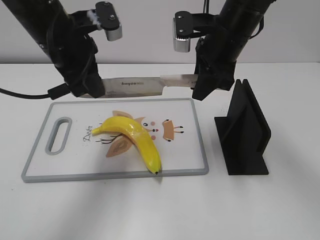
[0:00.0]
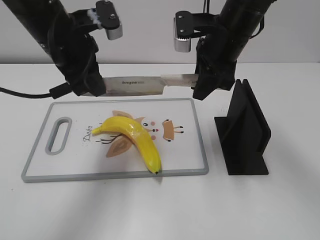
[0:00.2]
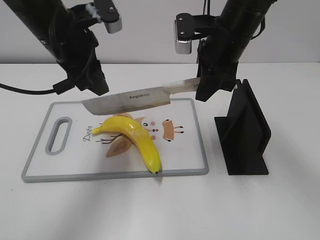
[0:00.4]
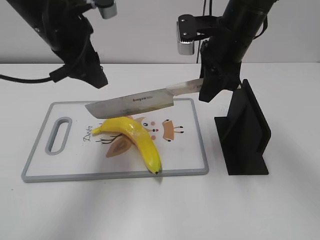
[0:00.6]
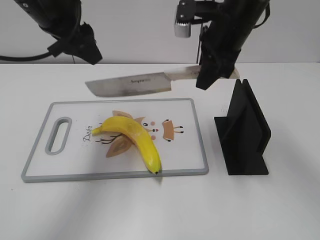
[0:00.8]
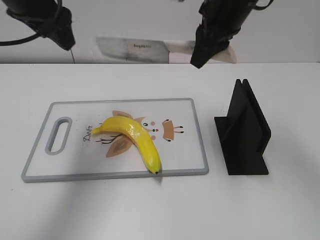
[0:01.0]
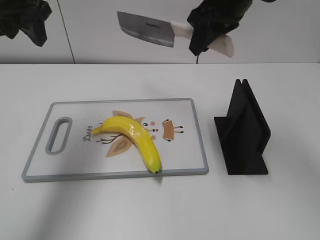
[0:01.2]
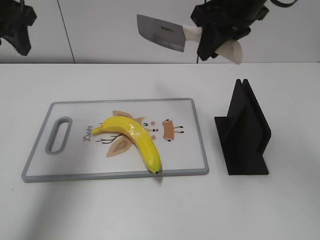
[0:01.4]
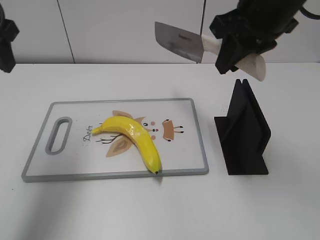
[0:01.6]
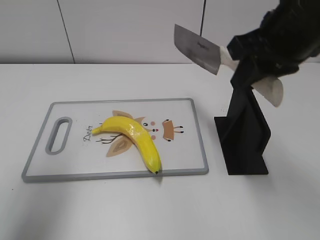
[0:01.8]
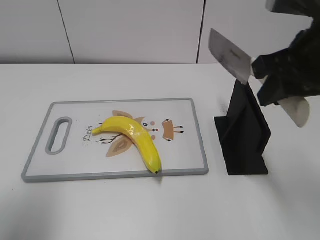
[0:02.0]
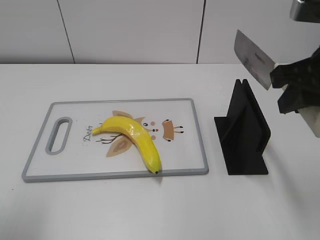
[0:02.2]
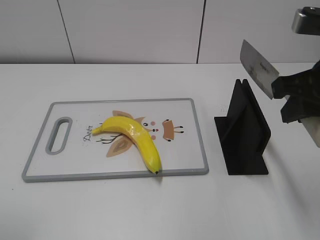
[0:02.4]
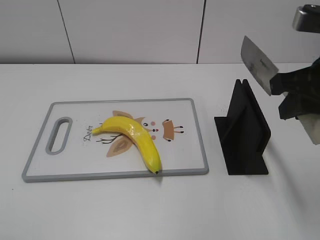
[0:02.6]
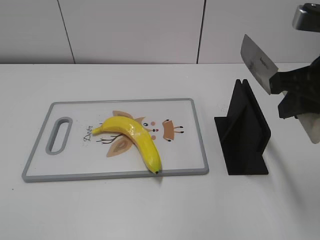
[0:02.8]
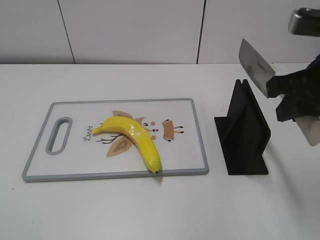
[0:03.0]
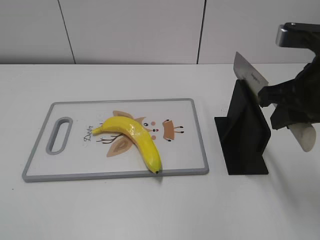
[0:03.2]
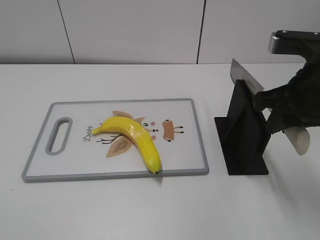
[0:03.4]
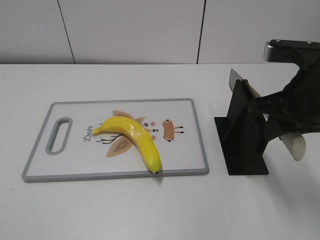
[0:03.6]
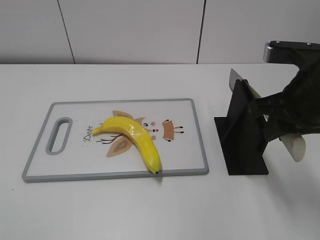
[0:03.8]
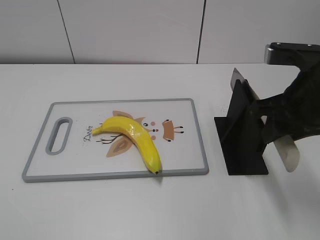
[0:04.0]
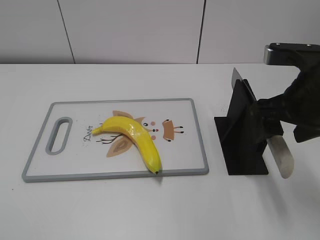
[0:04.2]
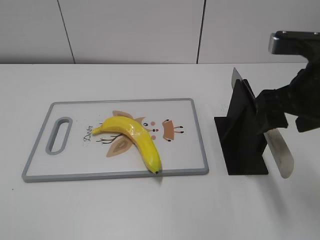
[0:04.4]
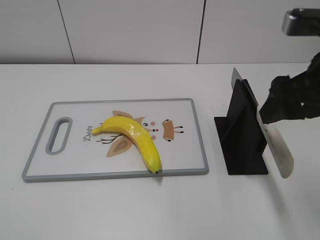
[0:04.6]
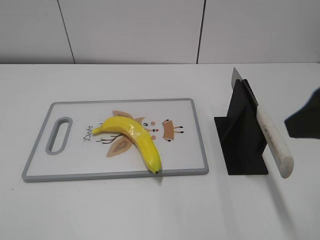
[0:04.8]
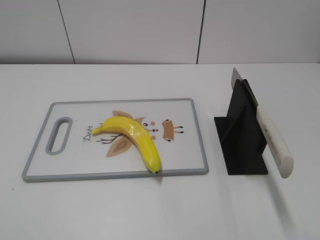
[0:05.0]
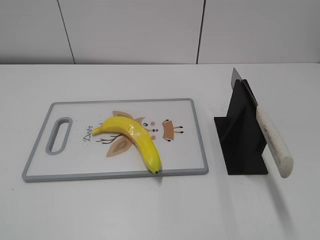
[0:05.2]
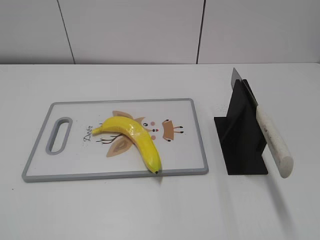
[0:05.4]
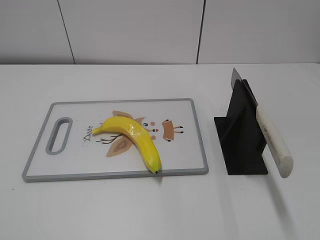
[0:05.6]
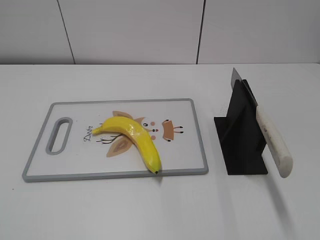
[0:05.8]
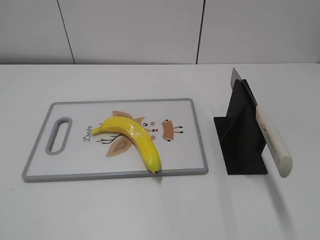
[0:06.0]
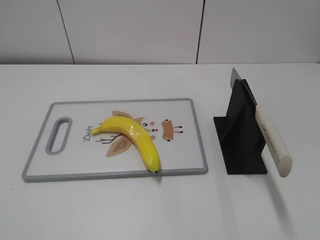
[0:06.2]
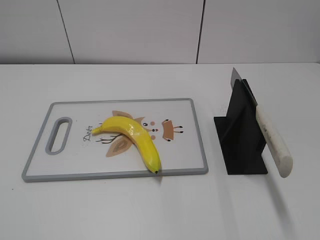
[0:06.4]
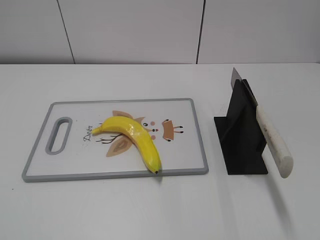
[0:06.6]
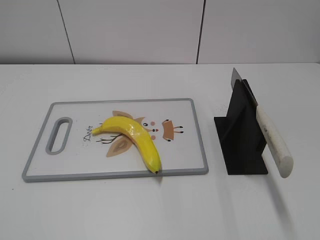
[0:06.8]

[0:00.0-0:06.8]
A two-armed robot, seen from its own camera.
Task of the whole recording: cut plastic banana.
Step, 0:00.0 to 0:00.8: Cut the banana with your right hand.
Step, 0:01.2 to 0:02.6: Lift the knife with your right hand.
Step, 0:02.8 to 0:06.8: Place the knife on the storage rack with your right hand.
0:00.0 to 0:01.4: The left gripper heads to the left and upward, covering approximately 10 cm, and opens up. Meanwhile the right gripper moves upward, some 10 cm.
0:01.4 to 0:02.8: The left gripper travels backward by roughly 30 cm, while the right gripper shifts roughly 15 cm backward and to the right.
0:02.8 to 0:04.0: The right gripper changes place by roughly 5 cm.
0:04.0 to 0:05.4: The right gripper is displaced backward by about 20 cm, and opens.
